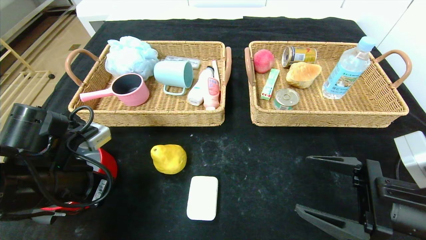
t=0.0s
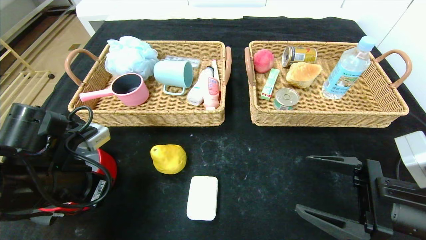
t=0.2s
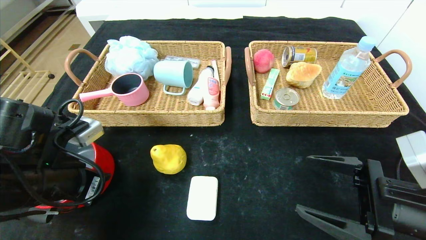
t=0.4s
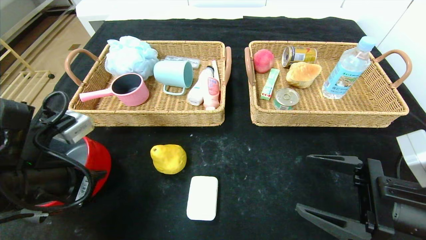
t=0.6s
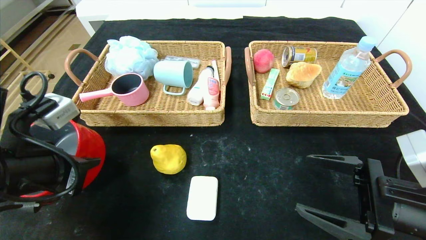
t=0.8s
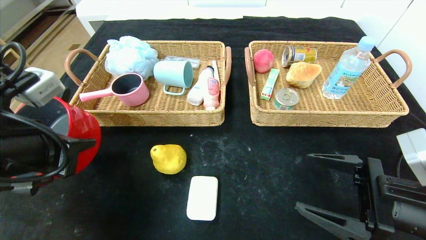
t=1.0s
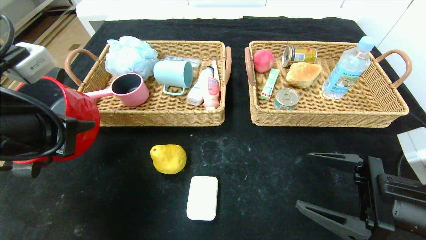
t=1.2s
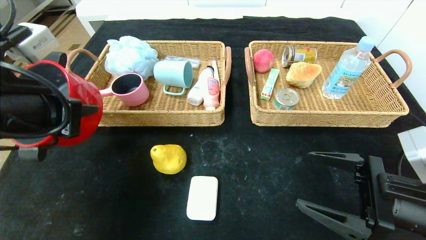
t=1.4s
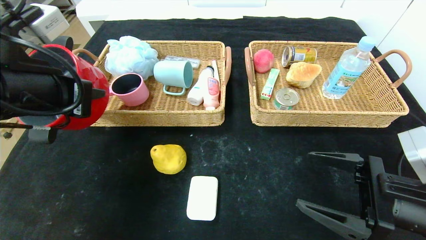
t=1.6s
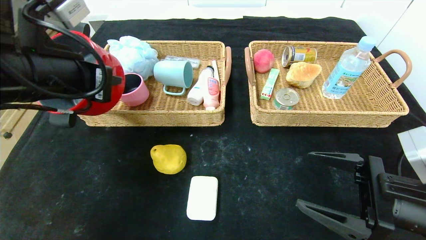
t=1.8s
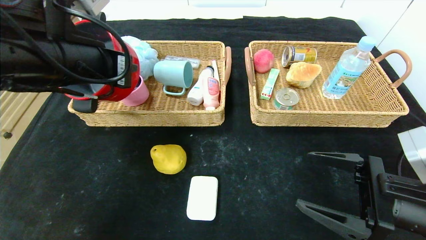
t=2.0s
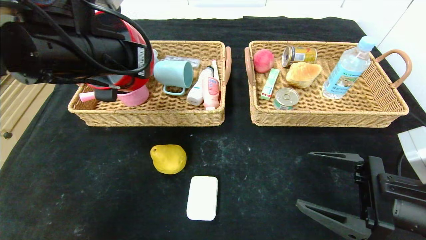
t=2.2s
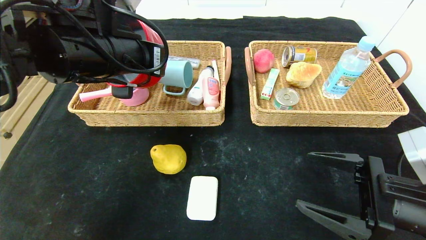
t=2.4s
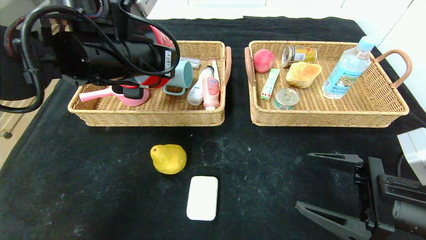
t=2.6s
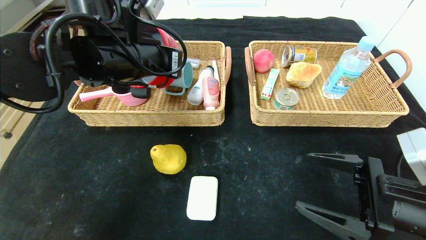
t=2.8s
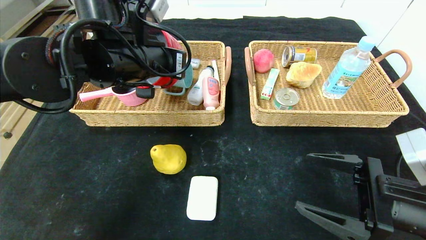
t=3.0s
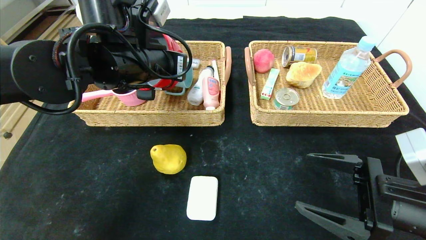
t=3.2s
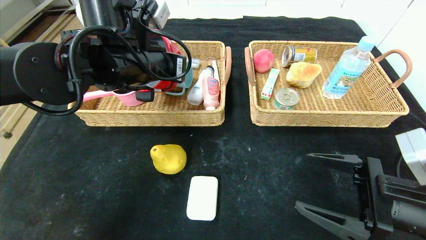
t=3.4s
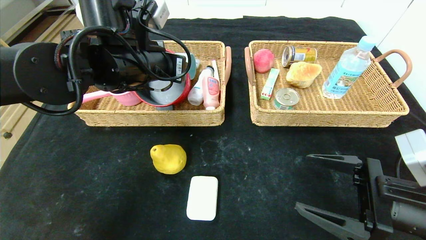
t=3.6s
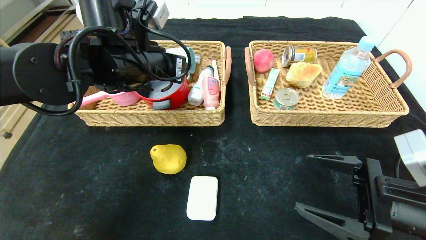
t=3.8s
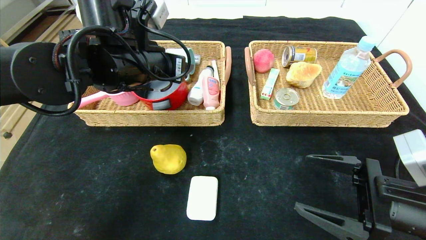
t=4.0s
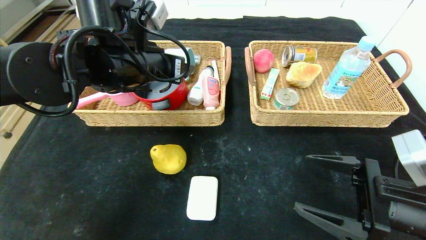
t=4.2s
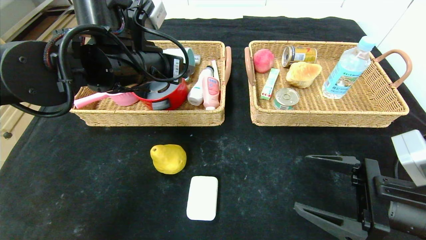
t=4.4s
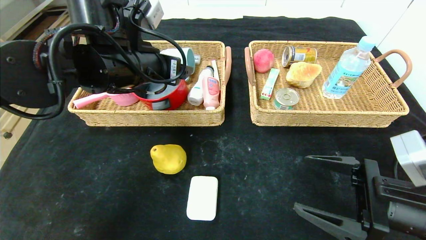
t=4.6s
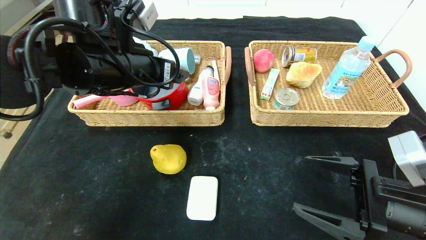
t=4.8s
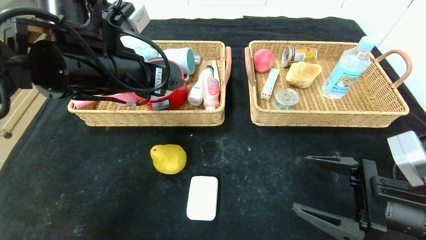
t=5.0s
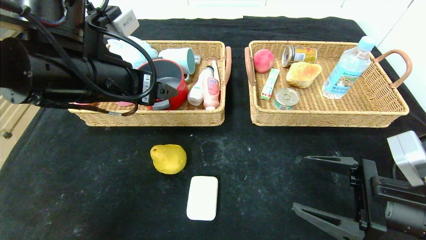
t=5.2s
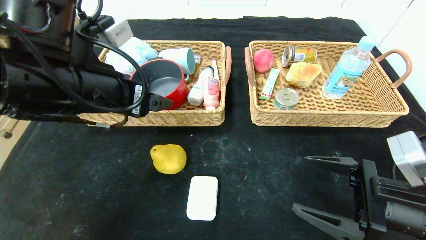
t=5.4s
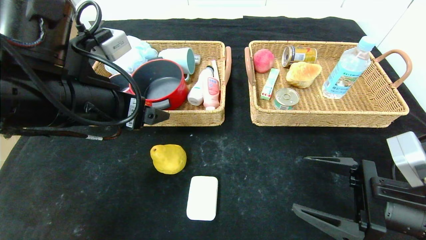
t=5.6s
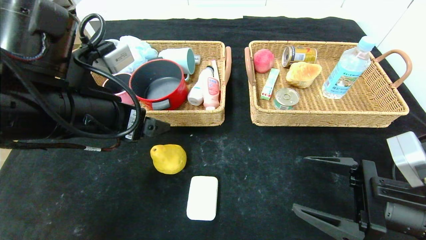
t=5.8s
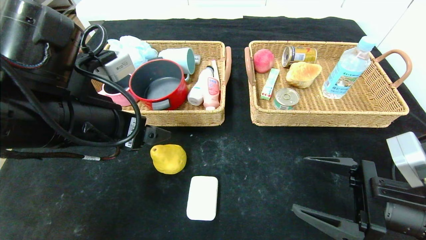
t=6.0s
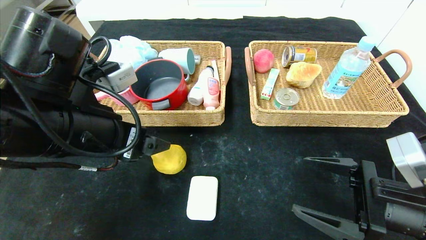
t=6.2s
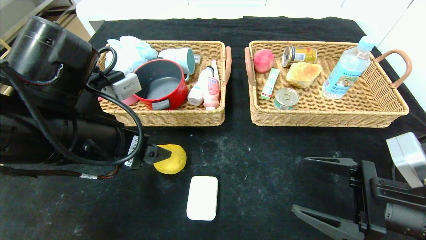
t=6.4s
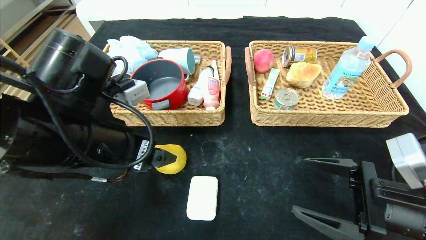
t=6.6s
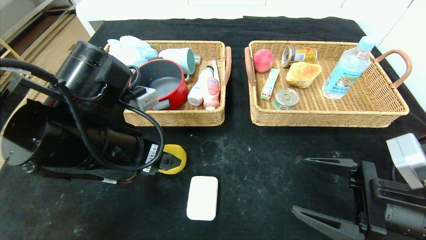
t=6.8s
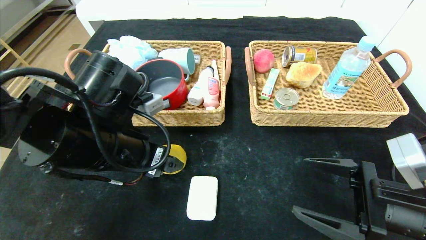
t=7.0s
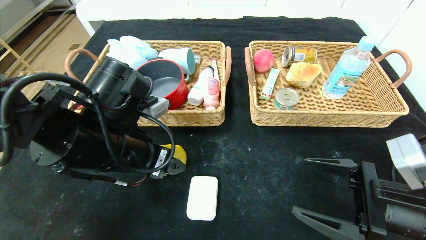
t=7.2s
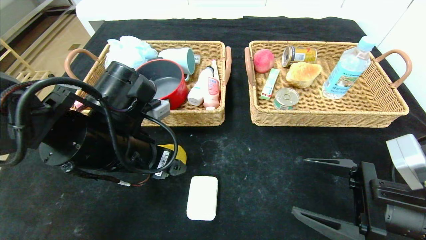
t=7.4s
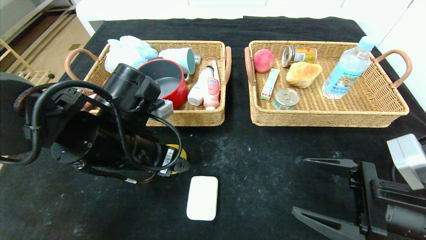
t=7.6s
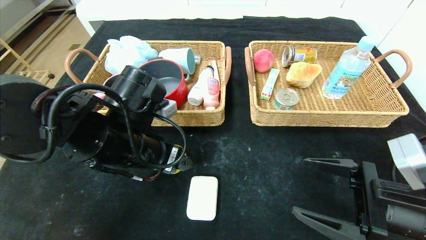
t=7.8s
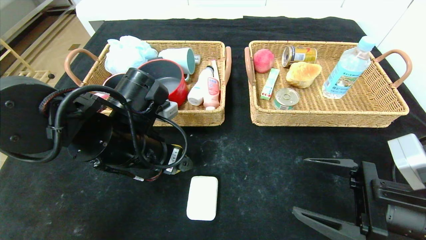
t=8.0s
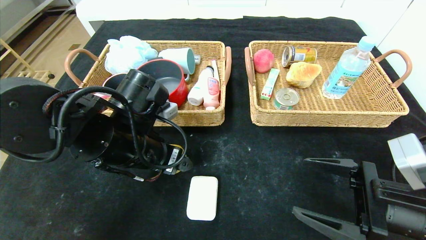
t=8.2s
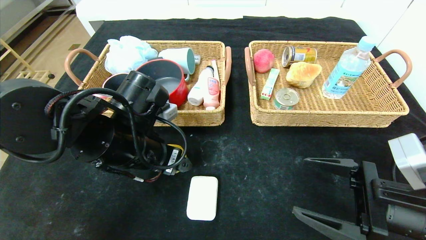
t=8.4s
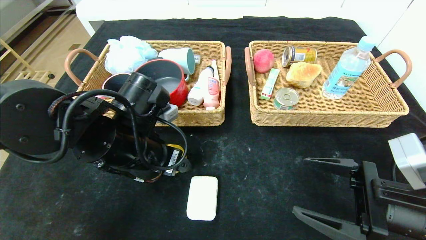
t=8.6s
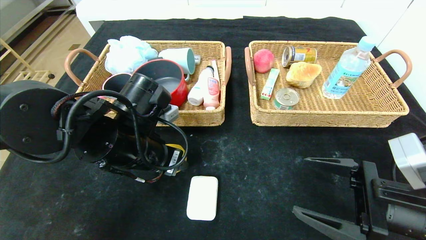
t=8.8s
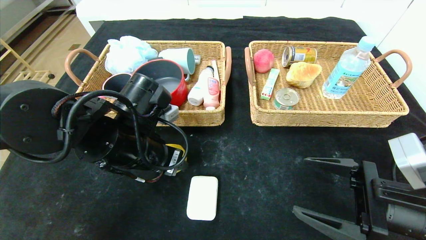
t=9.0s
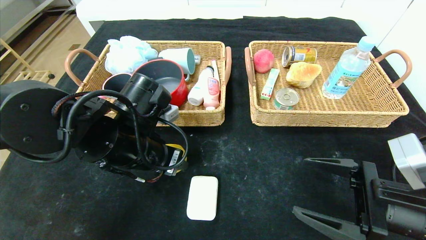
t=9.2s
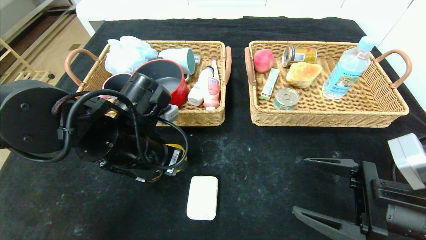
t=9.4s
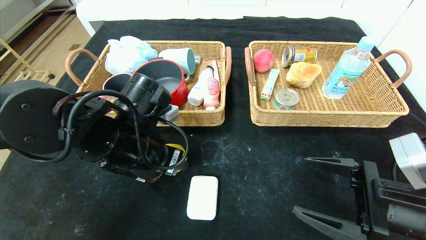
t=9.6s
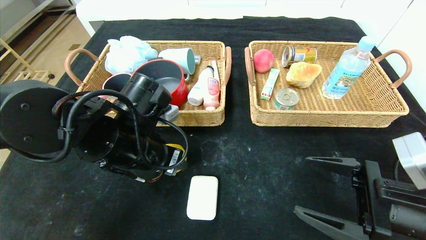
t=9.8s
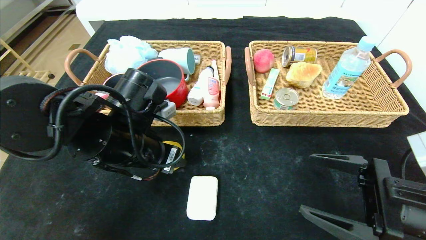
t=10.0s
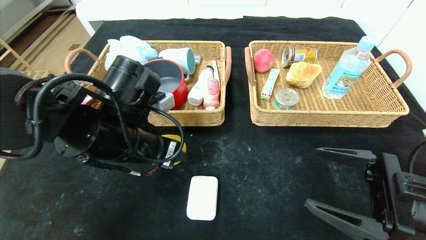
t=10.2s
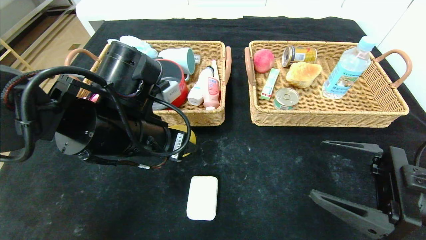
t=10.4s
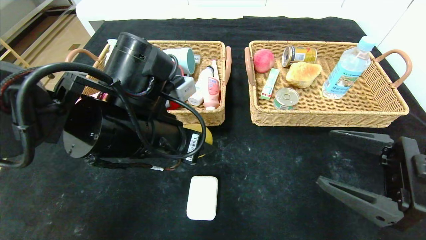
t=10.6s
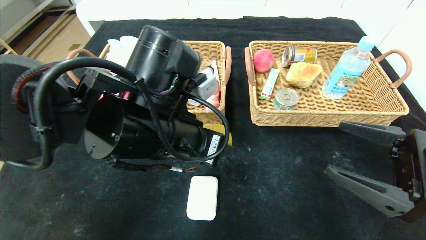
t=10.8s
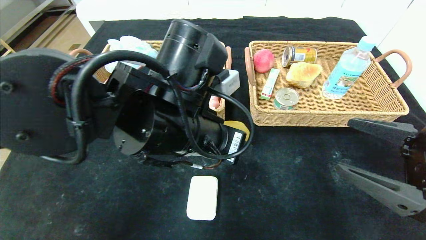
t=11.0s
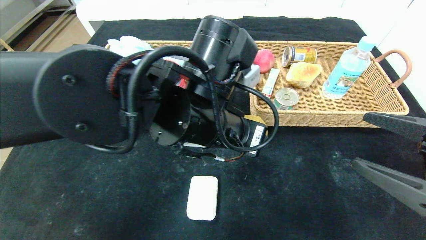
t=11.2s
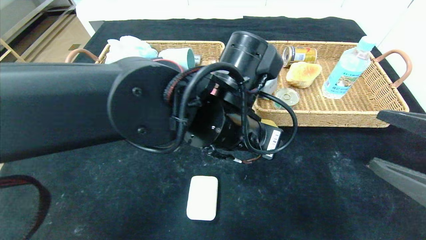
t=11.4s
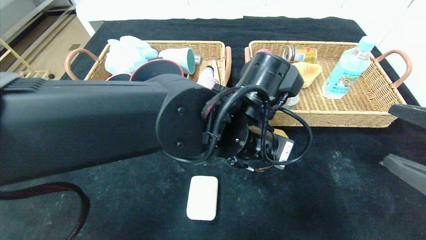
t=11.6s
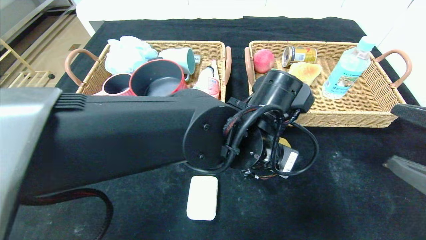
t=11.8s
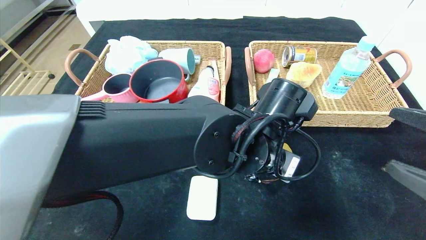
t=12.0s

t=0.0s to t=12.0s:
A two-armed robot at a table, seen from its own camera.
Step, t=0.0s to t=4.2s: Grasp the red pot and put it in the left basket.
t=0.0s to t=1.6s: The left gripper shifts some 15 cm upward.
t=1.6s to t=3.0s: The left gripper shifts roughly 15 cm forward and to the right.
t=3.0s to t=4.4s: The left gripper opens up.
t=4.4s to t=6.0s: The left gripper goes roughly 10 cm backward.
t=6.0s to t=7.6s: The left gripper heads downward, covering about 5 cm.
t=7.6s to t=10.4s: There are only small adjustments of the grippers.
t=10.4s to t=12.0s: The right gripper goes approximately 5 cm upward. Meanwhile the left gripper heads to the right, covering some 20 cm.

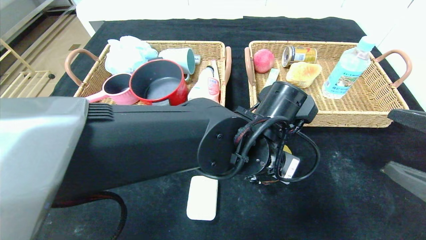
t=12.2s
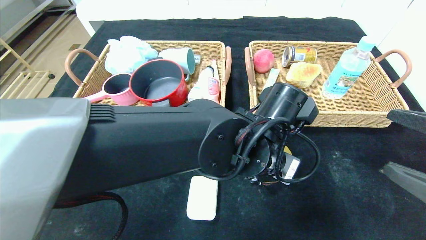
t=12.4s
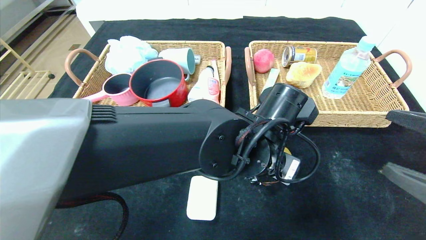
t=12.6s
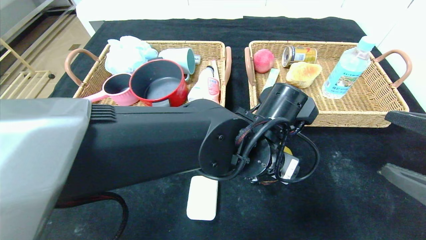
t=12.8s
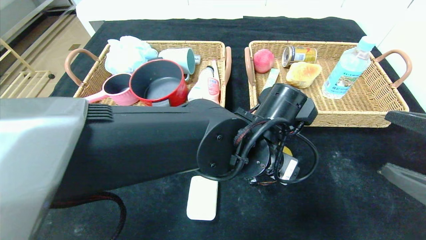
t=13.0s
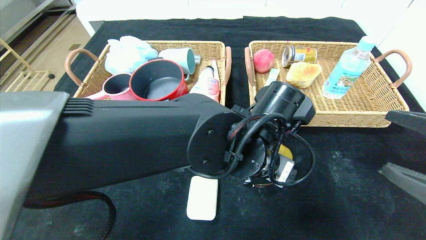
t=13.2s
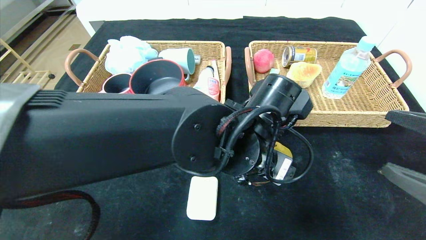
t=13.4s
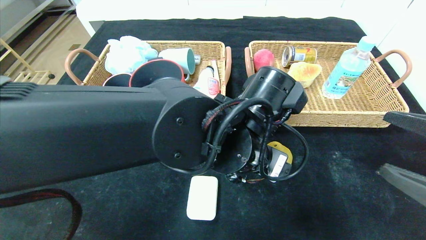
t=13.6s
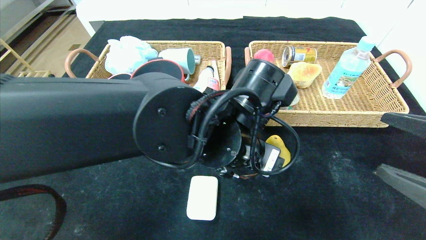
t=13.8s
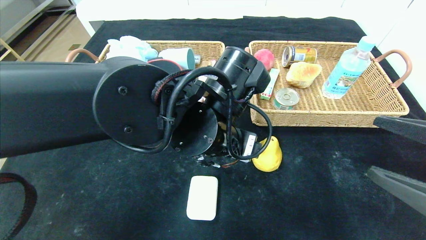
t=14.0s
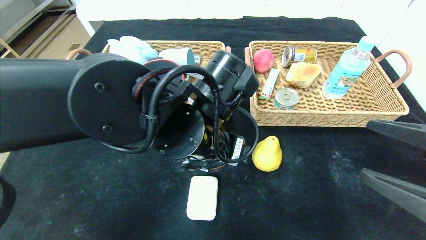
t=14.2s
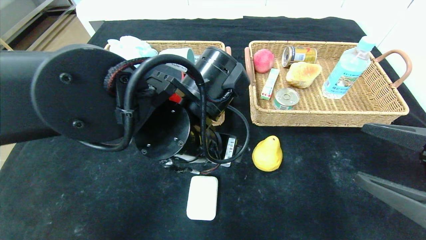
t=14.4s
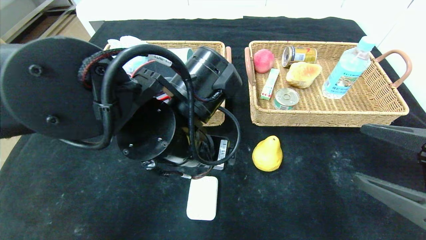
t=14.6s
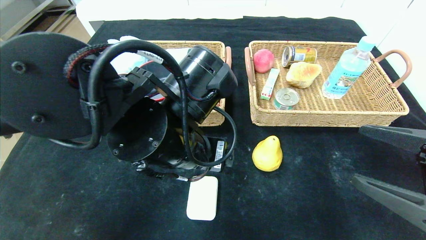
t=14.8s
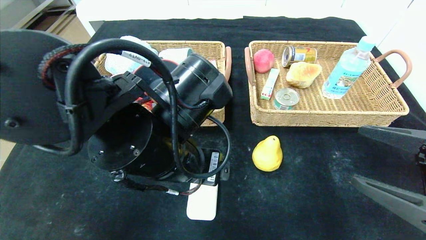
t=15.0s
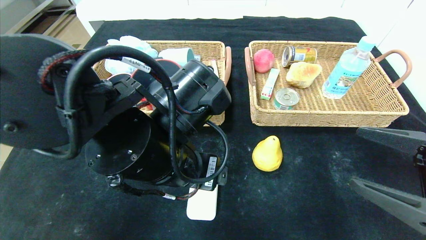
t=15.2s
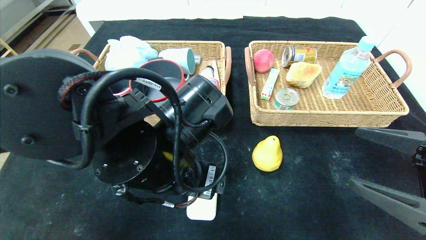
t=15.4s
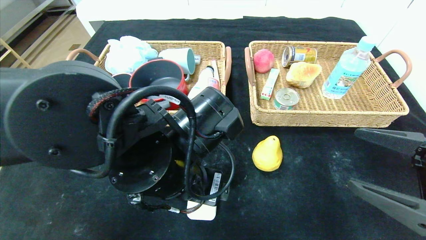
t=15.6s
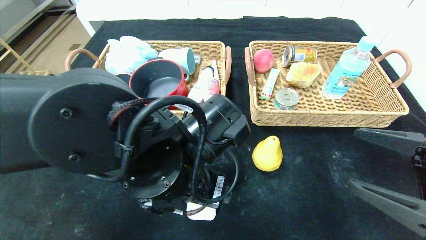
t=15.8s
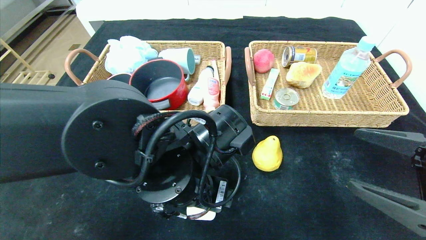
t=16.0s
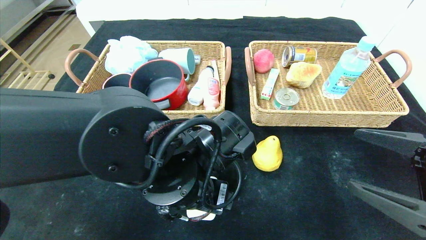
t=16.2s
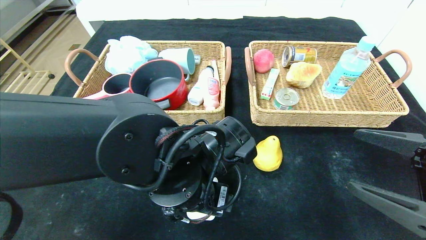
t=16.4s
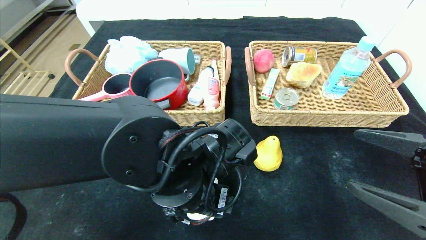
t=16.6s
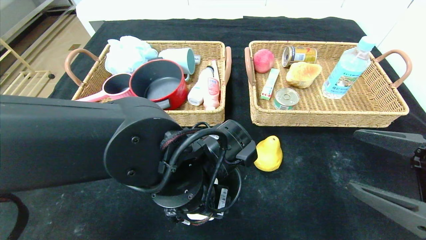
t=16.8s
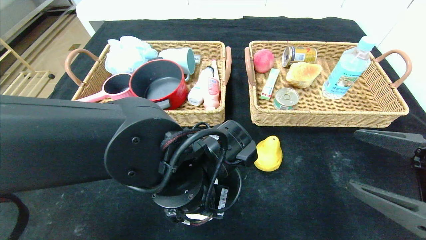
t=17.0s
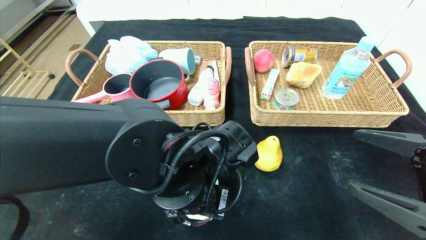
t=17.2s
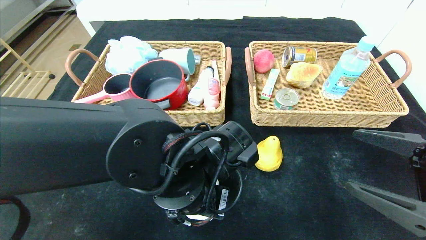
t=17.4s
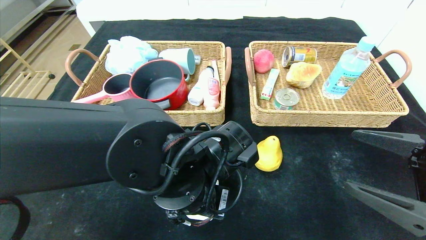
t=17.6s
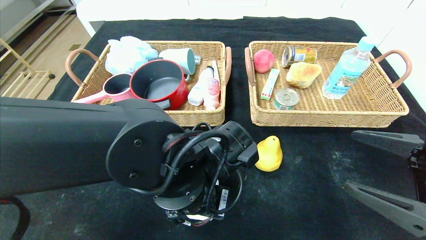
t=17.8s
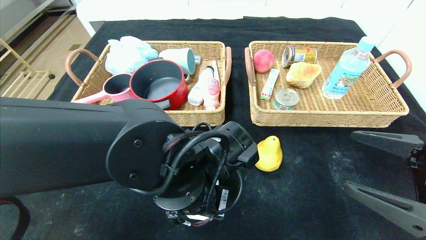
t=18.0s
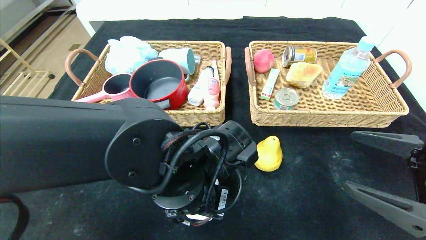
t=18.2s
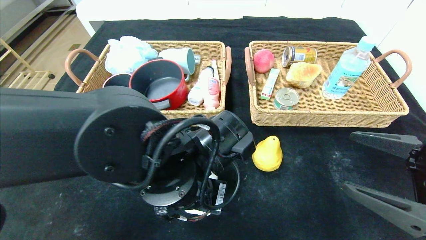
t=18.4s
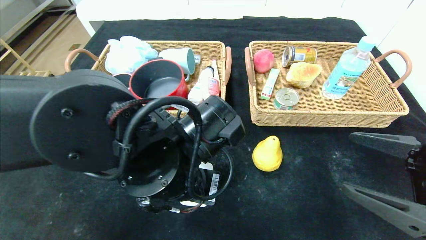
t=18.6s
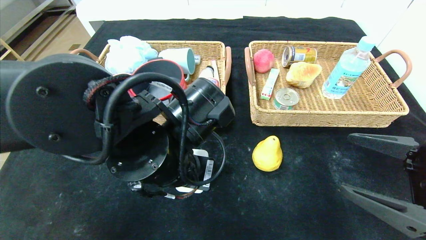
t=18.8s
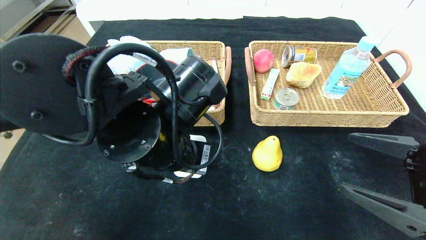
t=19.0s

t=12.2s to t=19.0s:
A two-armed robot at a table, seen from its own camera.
t=13.6s to t=15.0s: The left gripper shifts some 10 cm to the left.
t=15.0s to t=16.2s: The left gripper moves downward, approximately 5 cm.
t=16.2s to t=17.6s: The left gripper closes its fingers.
t=17.6s to t=19.0s: The left gripper goes about 5 cm upward.
